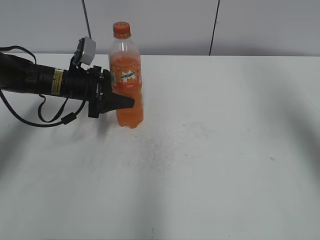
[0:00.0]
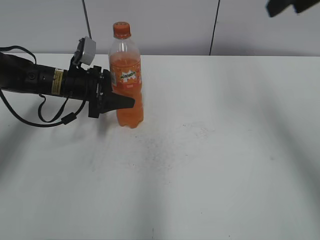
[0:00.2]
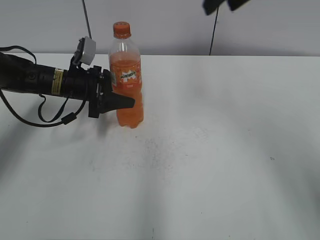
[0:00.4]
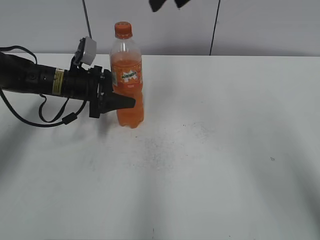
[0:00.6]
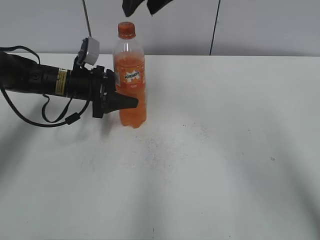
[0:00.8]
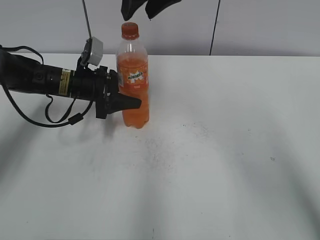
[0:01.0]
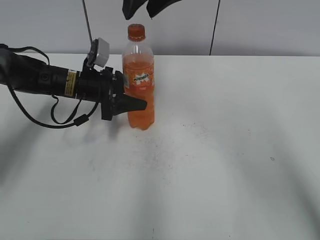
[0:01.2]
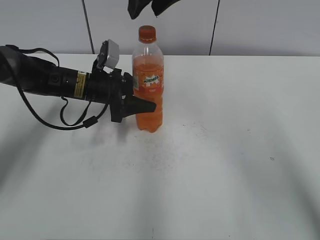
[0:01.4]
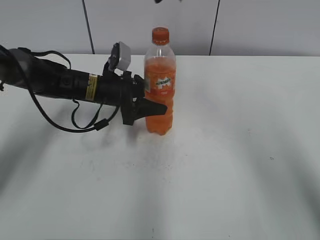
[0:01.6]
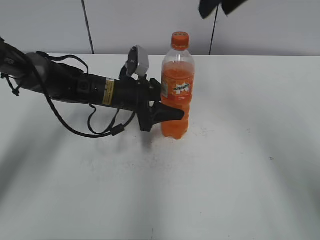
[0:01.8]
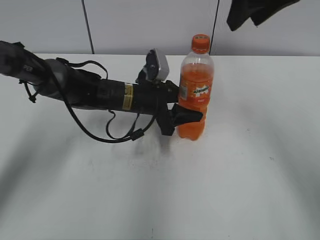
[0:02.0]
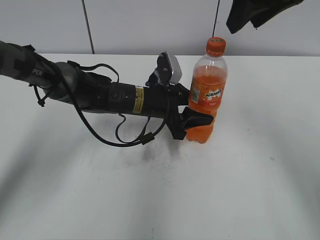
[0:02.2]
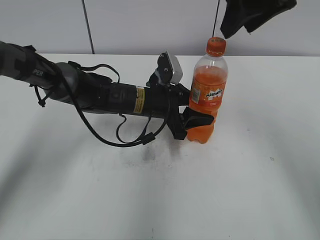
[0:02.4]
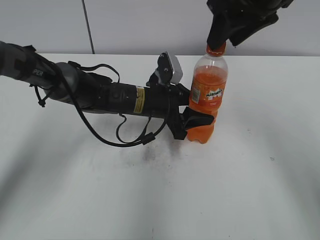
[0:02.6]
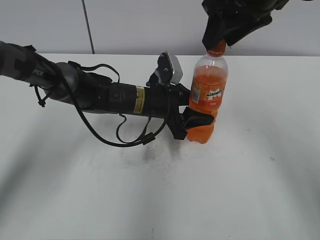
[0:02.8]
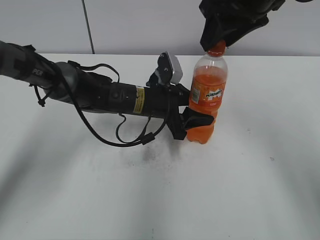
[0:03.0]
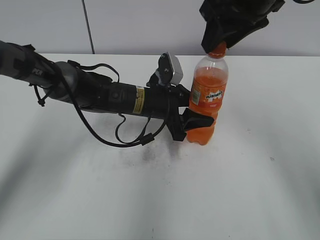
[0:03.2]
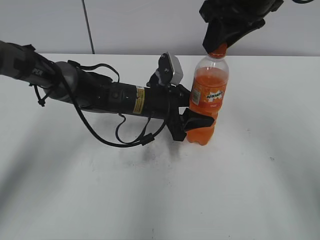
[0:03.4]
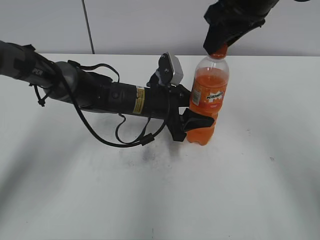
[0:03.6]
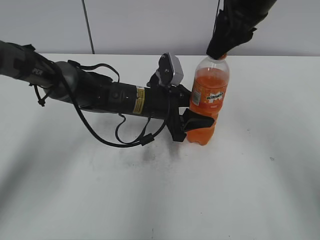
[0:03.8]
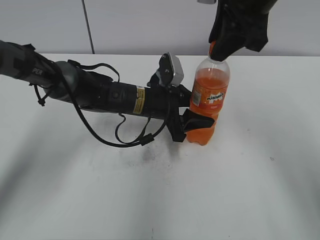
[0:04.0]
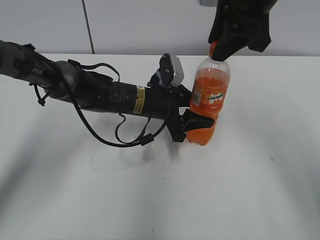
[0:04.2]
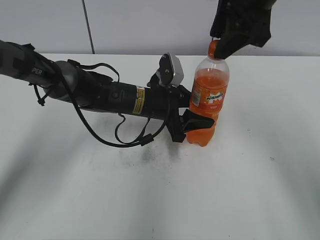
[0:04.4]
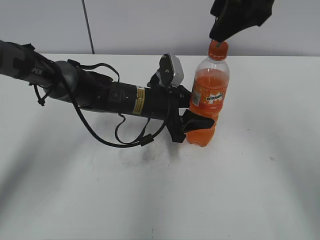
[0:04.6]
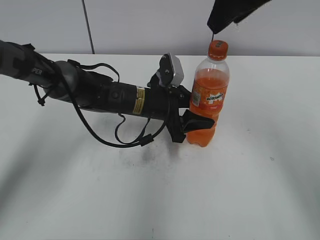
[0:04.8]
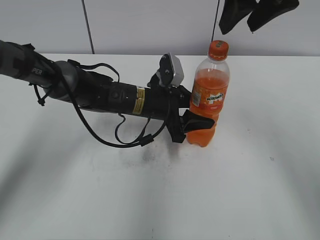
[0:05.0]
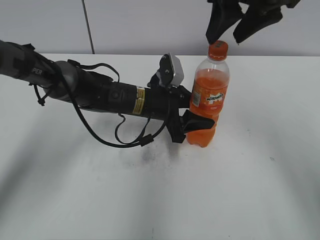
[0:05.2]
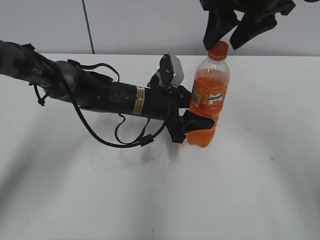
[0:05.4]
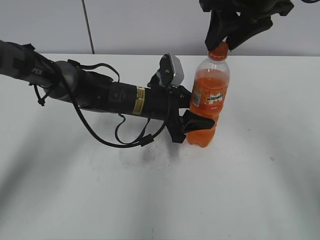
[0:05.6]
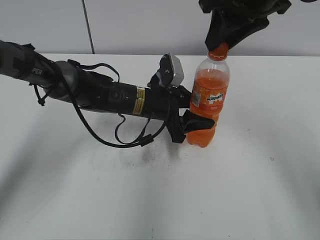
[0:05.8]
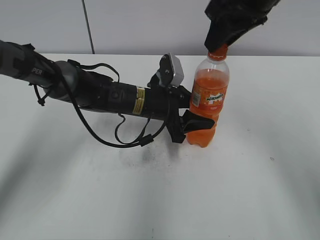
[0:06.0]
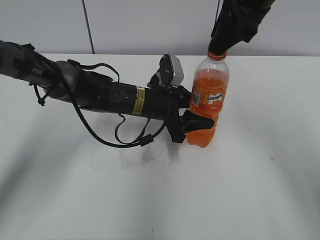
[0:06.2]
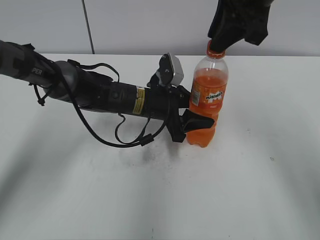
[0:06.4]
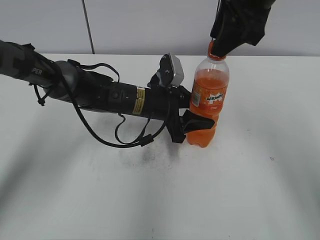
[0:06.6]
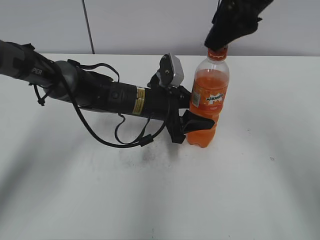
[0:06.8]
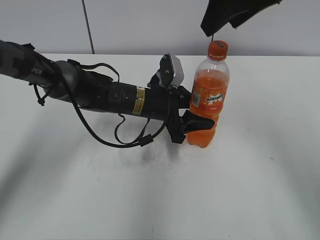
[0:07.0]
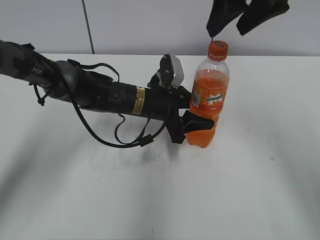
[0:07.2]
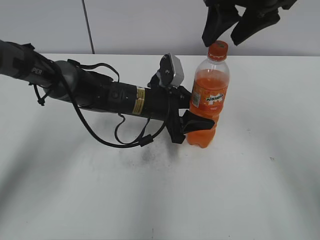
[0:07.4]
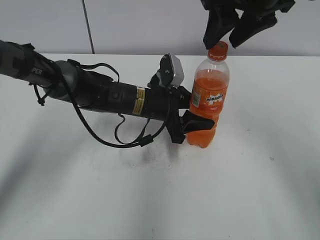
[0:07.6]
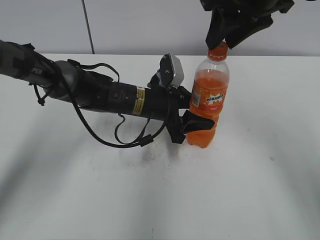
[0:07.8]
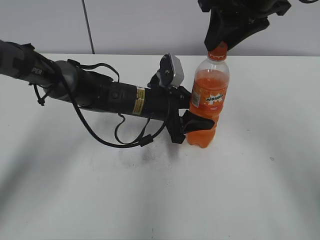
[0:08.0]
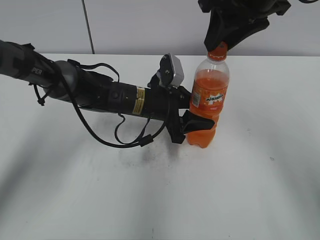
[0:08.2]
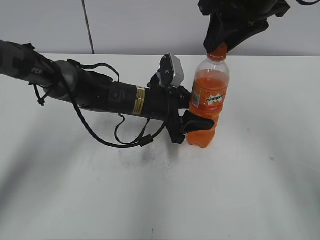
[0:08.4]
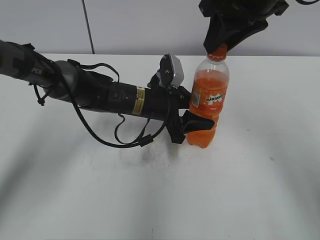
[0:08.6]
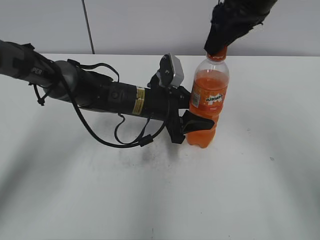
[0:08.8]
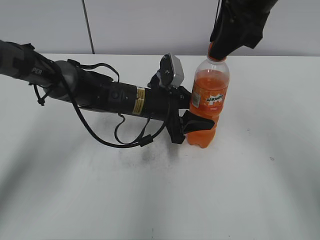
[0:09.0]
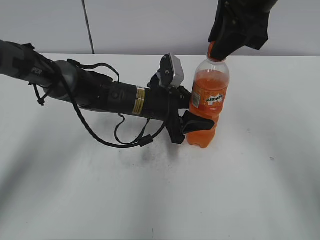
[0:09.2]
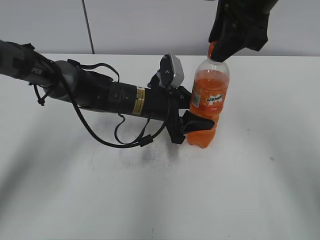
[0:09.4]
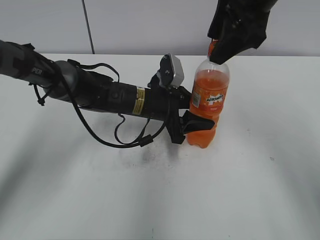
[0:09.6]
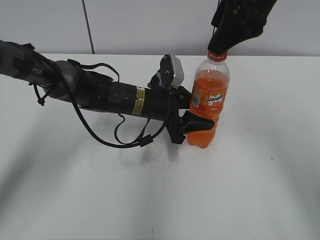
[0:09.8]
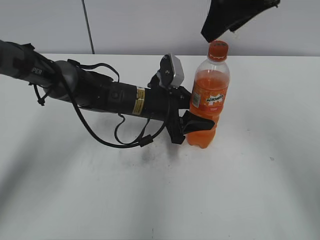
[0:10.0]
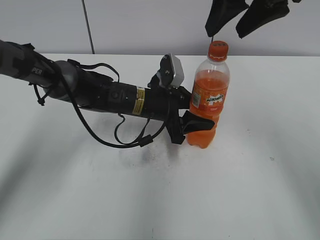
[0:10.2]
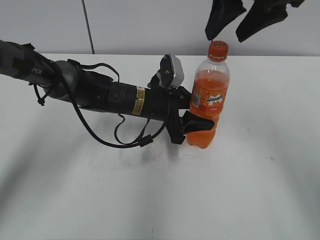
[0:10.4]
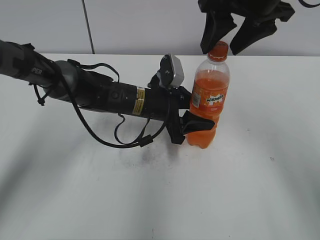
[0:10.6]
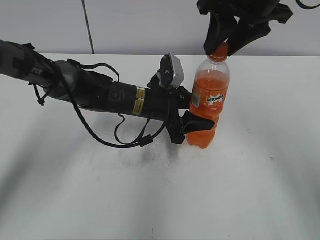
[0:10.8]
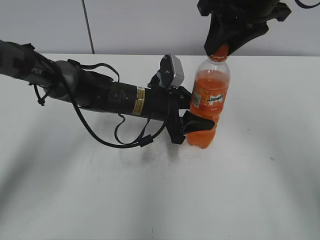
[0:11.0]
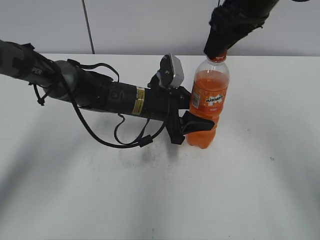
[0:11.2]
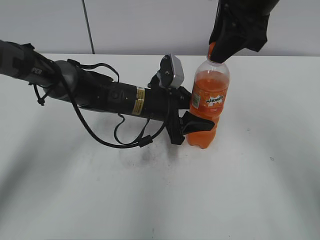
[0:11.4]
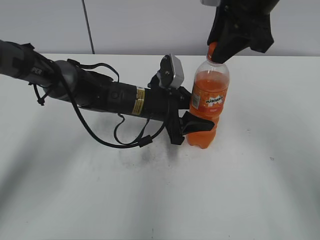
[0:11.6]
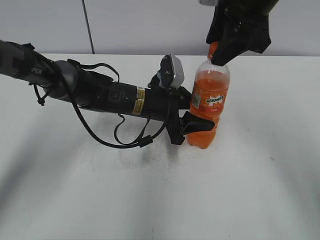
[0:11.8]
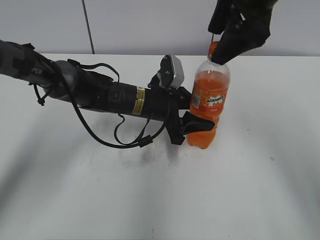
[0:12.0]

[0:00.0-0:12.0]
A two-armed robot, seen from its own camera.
Step, 0:00.0 to 0:02.2: Move the Mirinda from left to right.
0:00.0 to 0:01.6: The left gripper goes some 5 cm to the right. Meanwhile the right gripper travels to the left and forward by about 25 cm.
0:01.6 to 0:03.0: The grippers both shift to the right by approximately 10 cm.
0:03.0 to 0:04.4: The right gripper closes, then reopens.
0:04.4 to 0:06.0: The right gripper closes.
0:06.0 to 0:07.6: The right gripper opens its fingers.
0:07.6 to 0:09.0: The right gripper closes.
0:09.0 to 0:10.4: The right gripper opens its fingers.
0:10.4 to 0:12.0: The right gripper closes, then opens again.

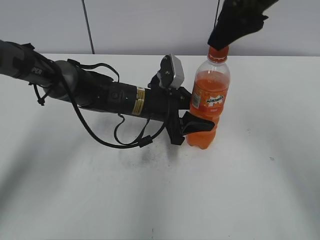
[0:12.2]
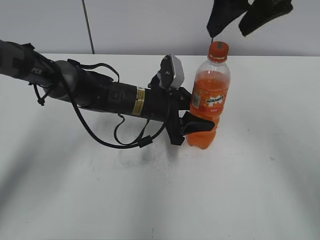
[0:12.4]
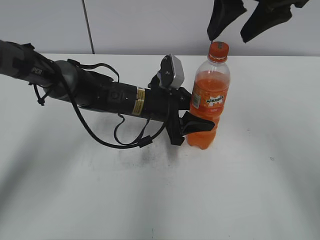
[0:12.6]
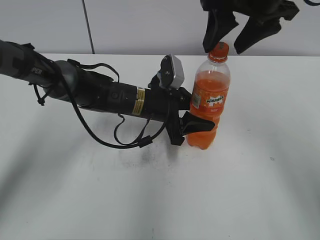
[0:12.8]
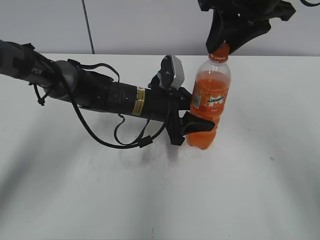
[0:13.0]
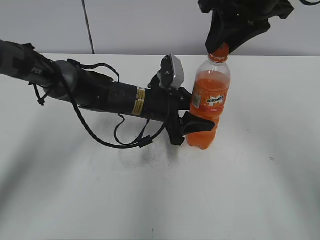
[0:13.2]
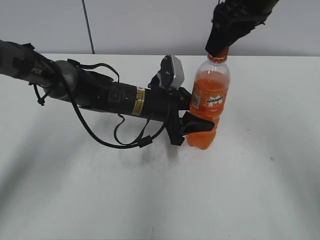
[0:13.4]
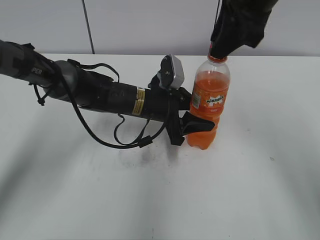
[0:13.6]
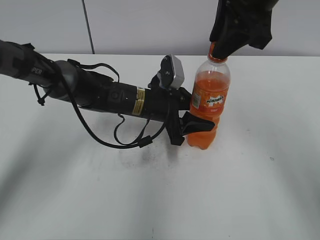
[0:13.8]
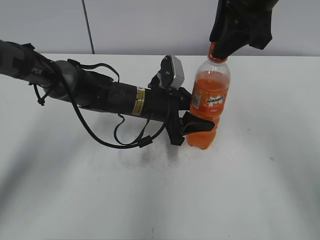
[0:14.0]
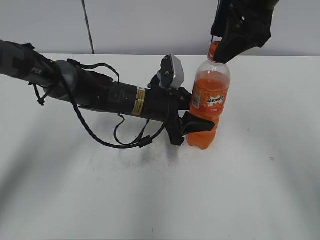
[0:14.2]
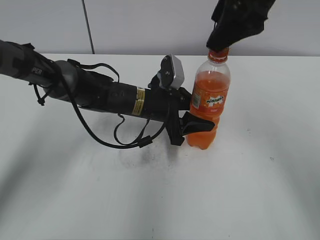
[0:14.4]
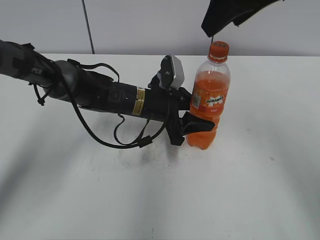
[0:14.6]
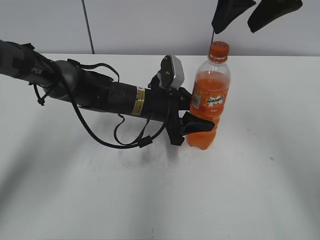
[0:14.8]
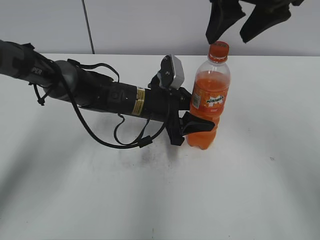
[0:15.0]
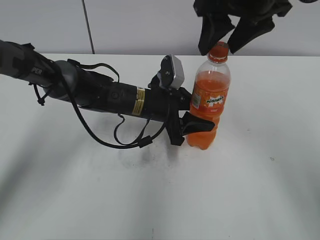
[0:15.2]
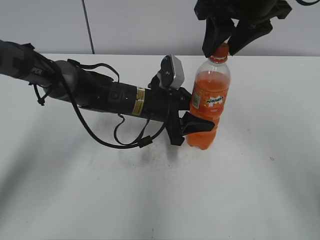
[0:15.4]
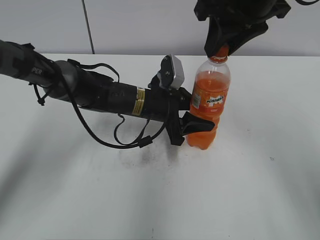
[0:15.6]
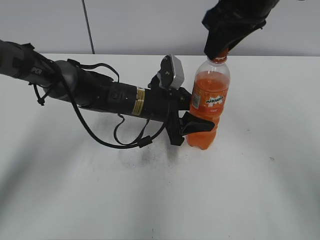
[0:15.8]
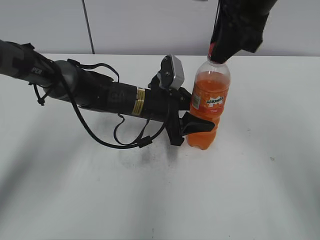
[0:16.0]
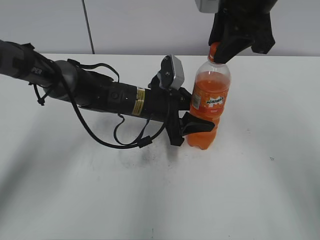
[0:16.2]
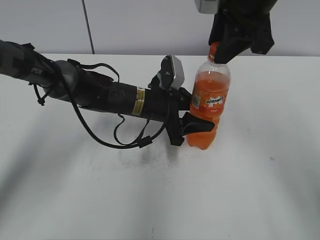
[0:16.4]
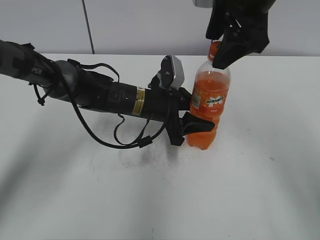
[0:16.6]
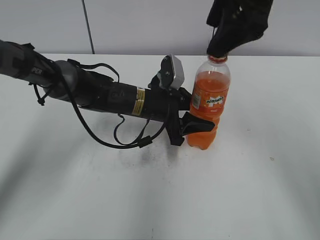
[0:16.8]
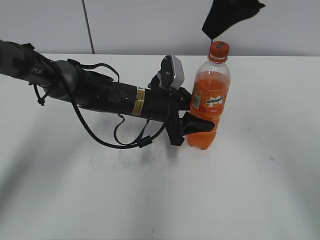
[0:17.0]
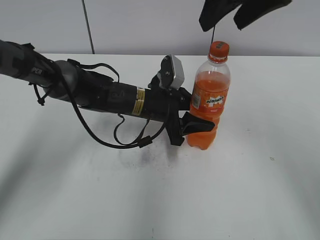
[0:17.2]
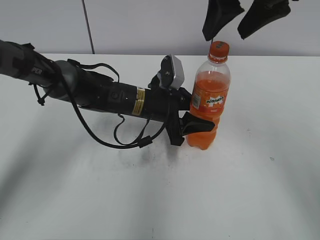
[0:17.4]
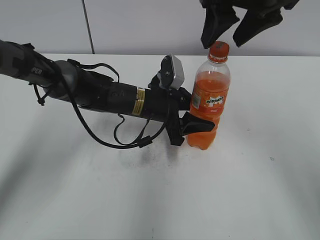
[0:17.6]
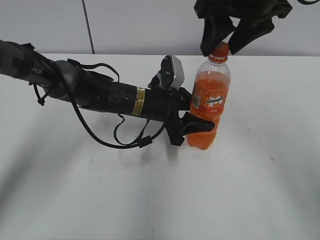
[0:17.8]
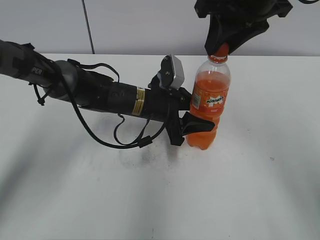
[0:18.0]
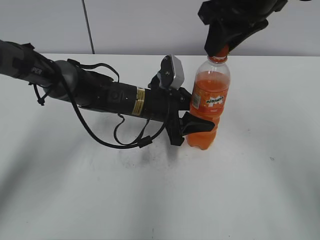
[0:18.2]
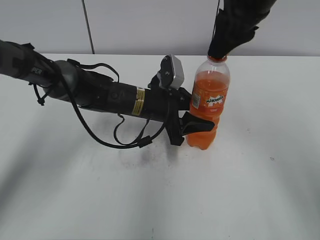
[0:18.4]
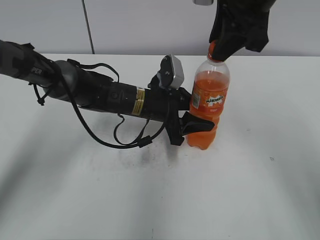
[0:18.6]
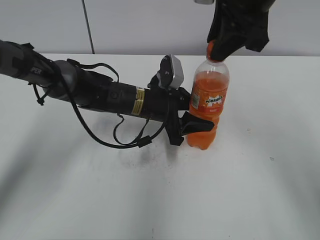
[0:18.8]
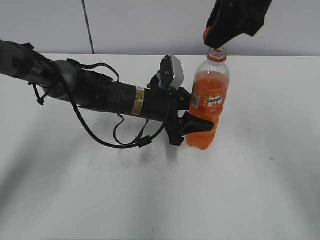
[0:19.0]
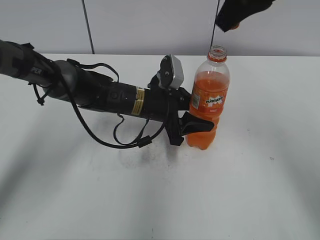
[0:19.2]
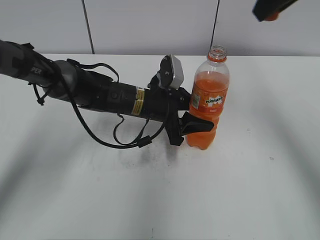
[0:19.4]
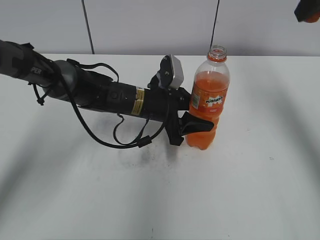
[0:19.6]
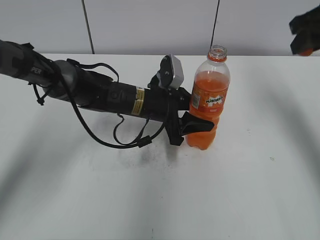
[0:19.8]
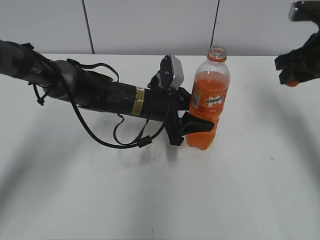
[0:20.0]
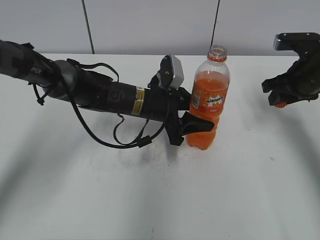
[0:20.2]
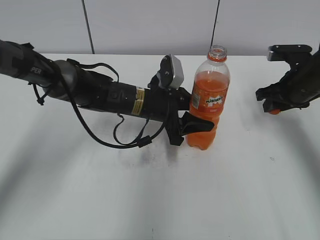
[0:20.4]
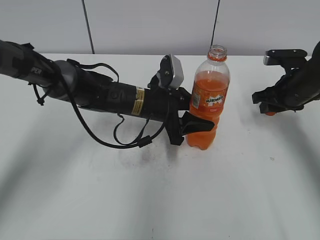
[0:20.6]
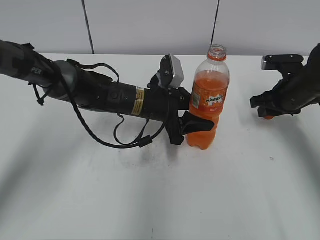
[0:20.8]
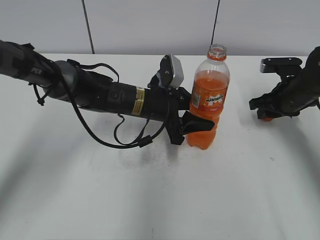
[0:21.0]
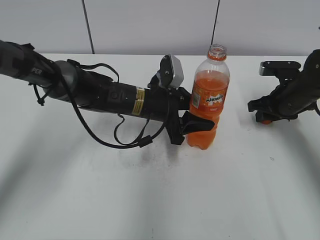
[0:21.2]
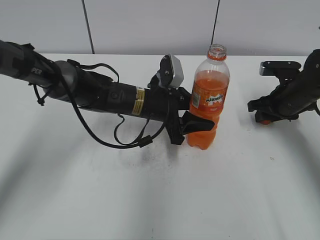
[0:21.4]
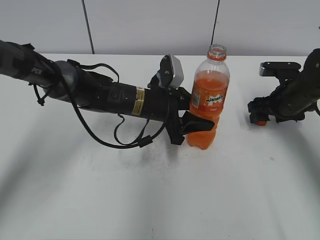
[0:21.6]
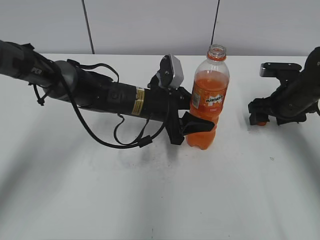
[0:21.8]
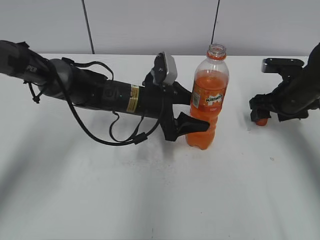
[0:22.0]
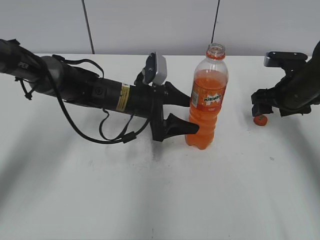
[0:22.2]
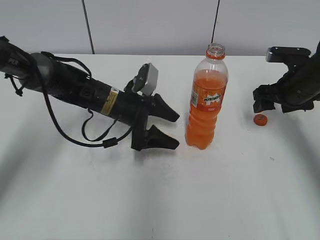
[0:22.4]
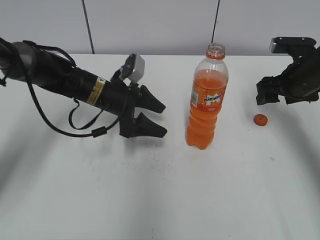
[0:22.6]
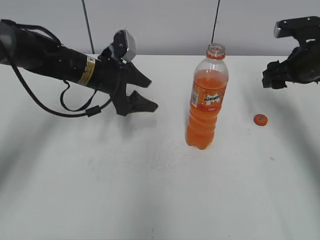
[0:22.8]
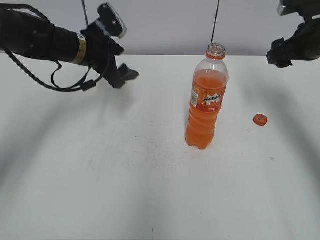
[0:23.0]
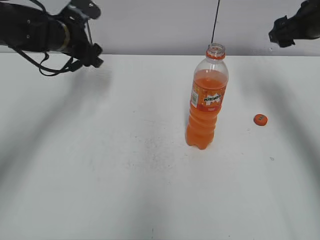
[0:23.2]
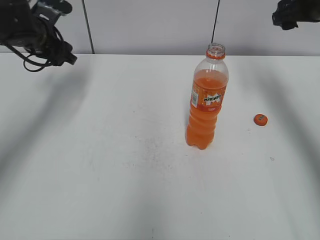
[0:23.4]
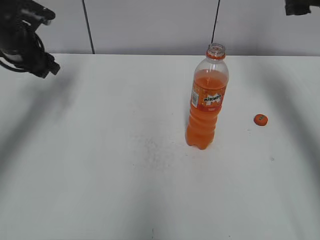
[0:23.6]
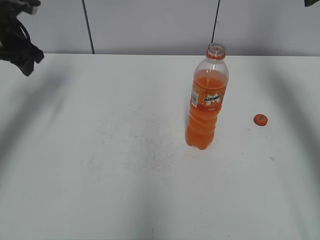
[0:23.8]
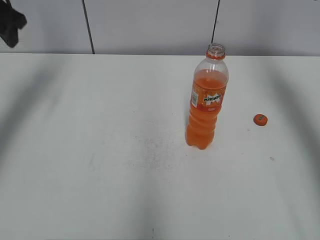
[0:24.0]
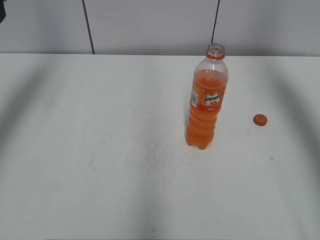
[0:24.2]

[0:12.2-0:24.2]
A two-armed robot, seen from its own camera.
Step, 0:19.2 to 0:21.4: Place the bottle cap on the right.
Step, 0:21.6 to 0:22.0: Place the Mirinda with the left hand.
0:12.2 to 0:13.8: The right gripper closes up.
0:13.8 to 0:15.2: The right gripper opens.
0:15.2 to 0:16.6: The right gripper closes, then reopens.
0:16.6 to 0:18.2: The right gripper closes its fingers.
0:18.2 to 0:19.8: The right gripper heads to the right, covering approximately 15 cm.
0:19.8 to 0:21.2: The right gripper heads downward, covering about 20 cm.
0:21.2 to 0:22.6: The left gripper heads to the left, covering approximately 10 cm, and opens its fingers; the right gripper moves upward, roughly 5 cm, and opens.
0:22.6 to 0:24.2: The right gripper travels upward by approximately 25 cm. The left gripper travels upward and to the left by roughly 30 cm.
